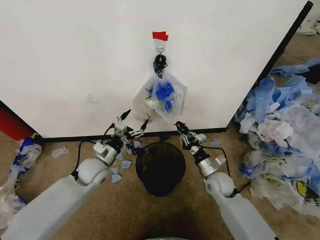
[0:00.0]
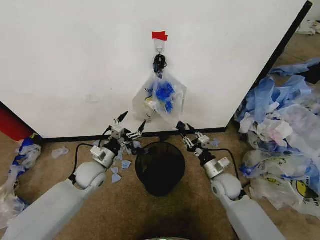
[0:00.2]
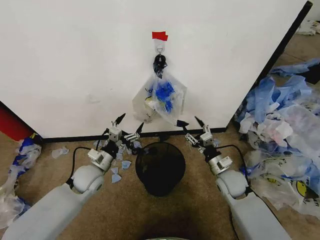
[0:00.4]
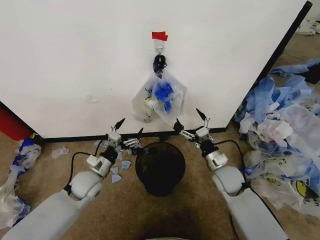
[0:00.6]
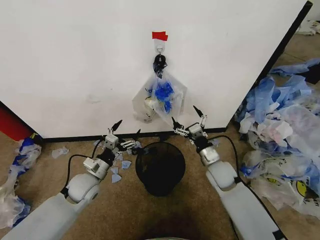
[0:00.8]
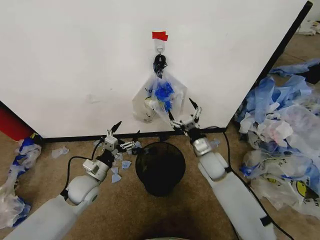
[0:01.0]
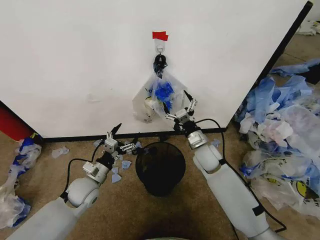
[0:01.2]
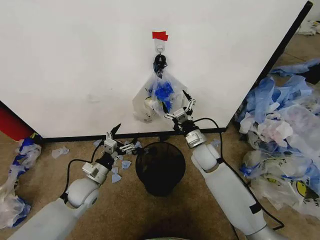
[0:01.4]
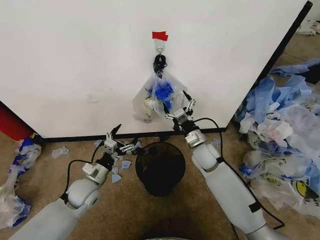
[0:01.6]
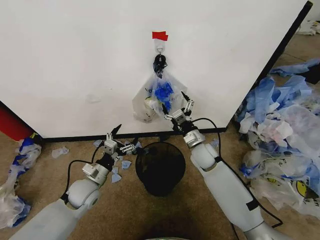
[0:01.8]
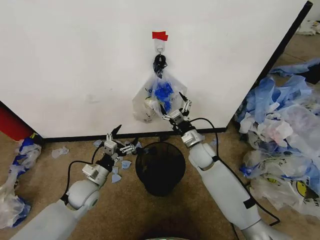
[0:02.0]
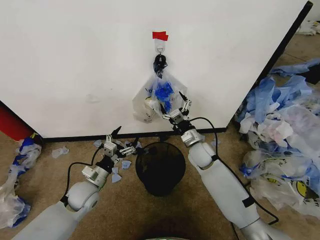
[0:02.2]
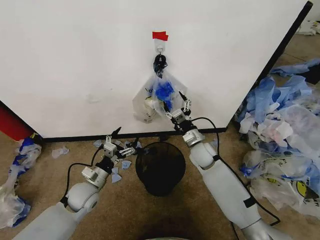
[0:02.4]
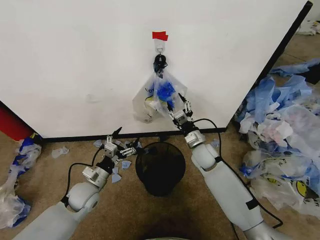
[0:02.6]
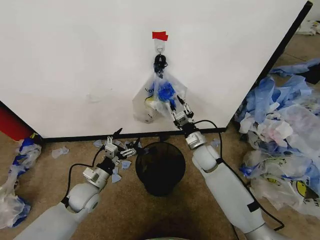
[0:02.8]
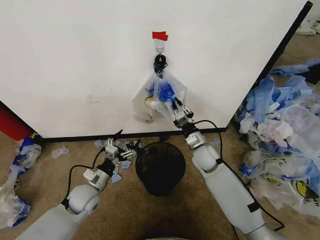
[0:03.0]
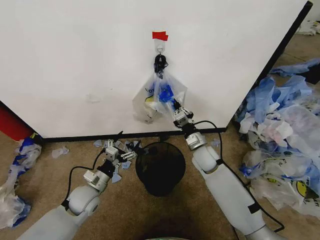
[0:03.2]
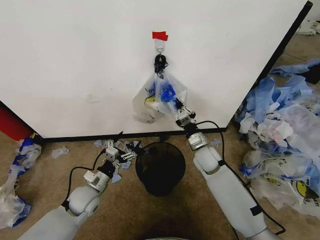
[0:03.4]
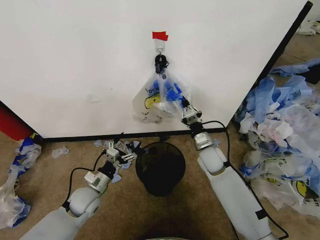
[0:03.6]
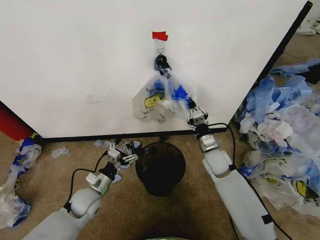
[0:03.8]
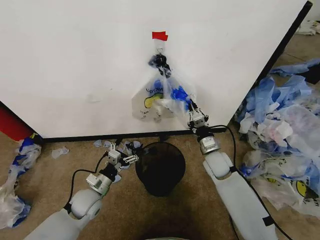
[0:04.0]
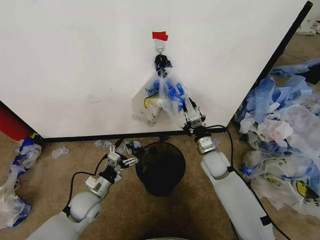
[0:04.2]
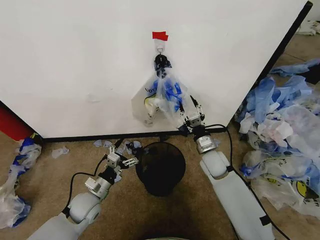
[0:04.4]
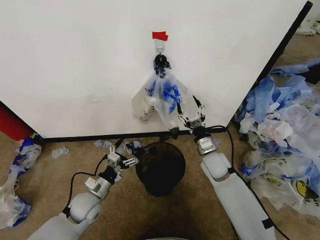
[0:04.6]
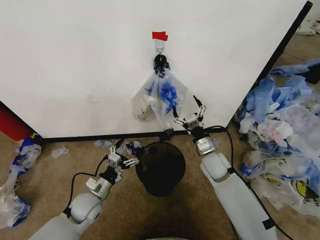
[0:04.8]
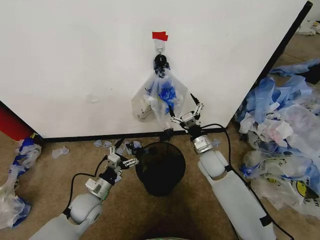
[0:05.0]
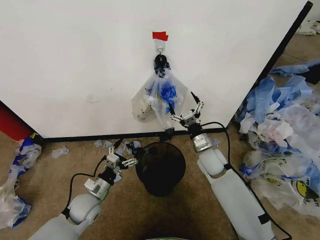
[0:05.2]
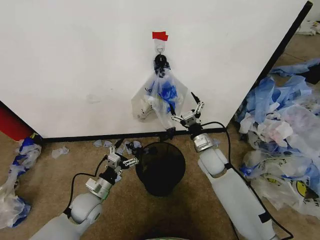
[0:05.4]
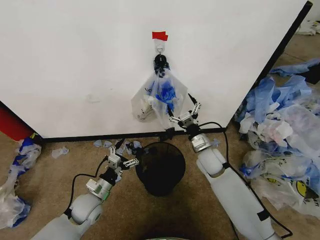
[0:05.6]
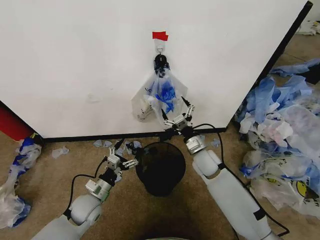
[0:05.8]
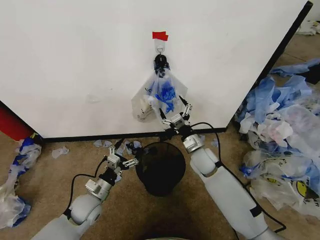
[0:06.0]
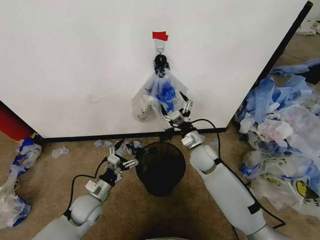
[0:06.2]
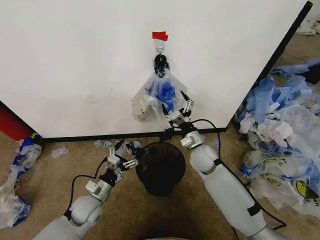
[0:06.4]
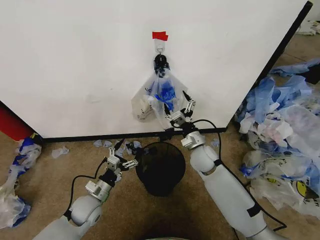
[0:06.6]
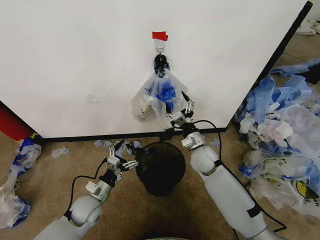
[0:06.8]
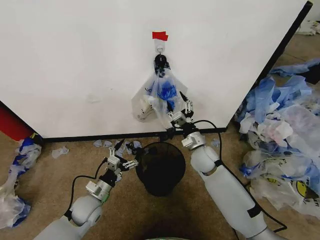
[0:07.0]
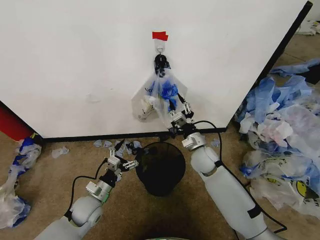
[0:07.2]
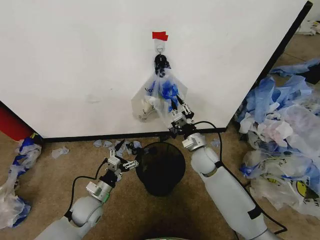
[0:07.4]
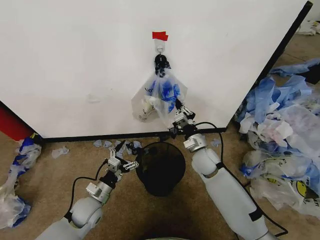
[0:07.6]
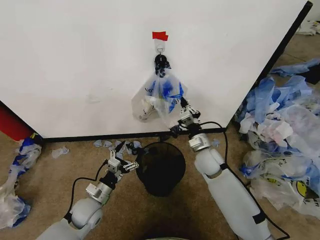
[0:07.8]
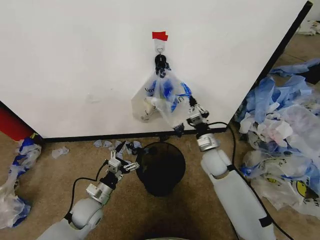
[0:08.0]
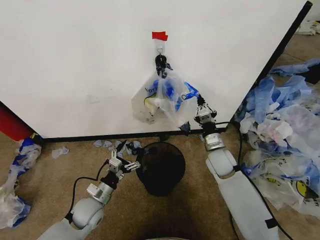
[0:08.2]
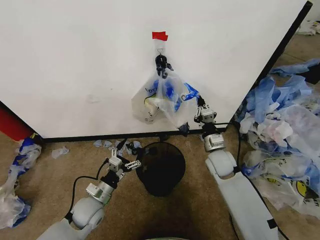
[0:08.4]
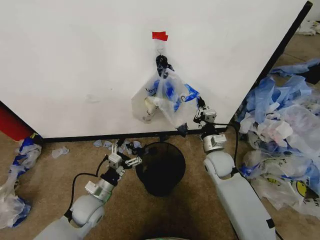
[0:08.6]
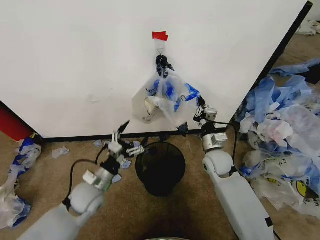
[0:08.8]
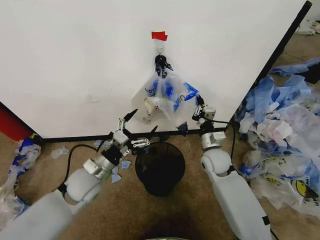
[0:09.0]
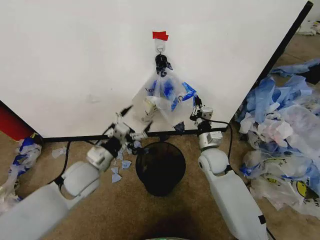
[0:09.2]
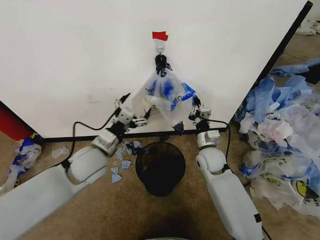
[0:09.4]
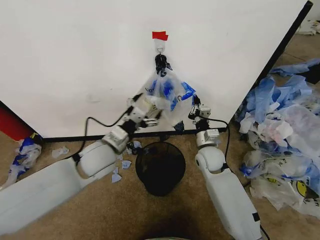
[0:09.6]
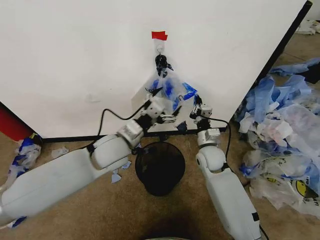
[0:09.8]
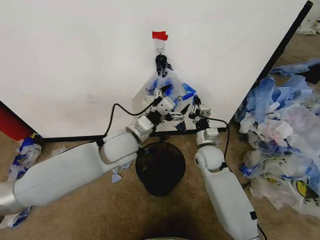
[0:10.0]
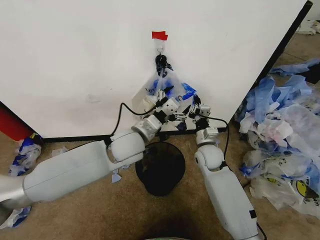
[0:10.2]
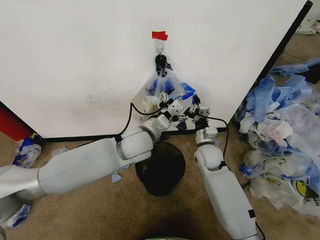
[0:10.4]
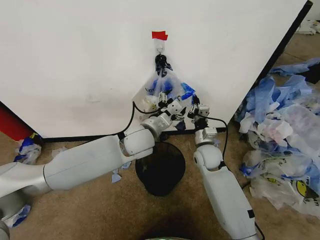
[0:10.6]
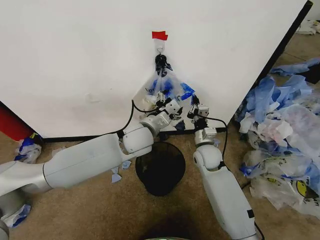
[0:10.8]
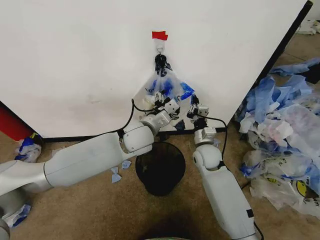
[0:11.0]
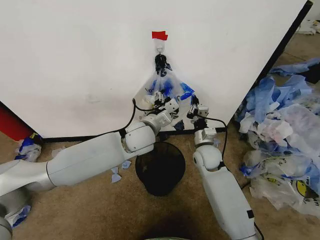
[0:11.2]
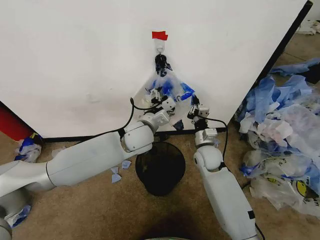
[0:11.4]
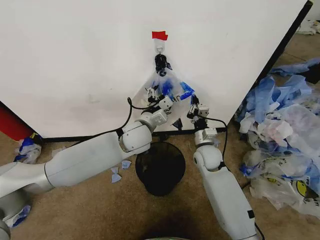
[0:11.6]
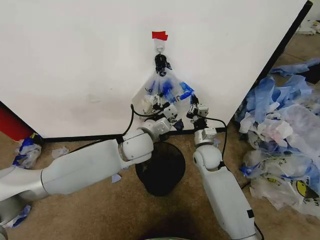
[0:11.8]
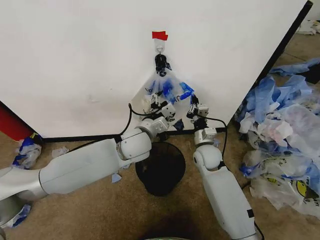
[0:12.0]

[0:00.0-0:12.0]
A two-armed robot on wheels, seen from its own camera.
Task of the whole recording: Pick up the garbage bag from the wall and place it over the trash bin.
0:00.0 to 0:01.6: The left gripper goes some 5 cm backward. Meanwhile the right gripper is displaced upward, forward and to the left by roughly 10 cm, and opens up.
0:01.6 to 0:03.0: The right gripper closes up.
0:03.0 to 0:04.4: The right gripper opens up.
0:04.4 to 0:06.0: The right gripper opens.
0:06.0 to 0:07.6: The right gripper closes up.
0:07.6 to 0:09.0: The left gripper goes roughly 10 cm upward.
0:09.0 to 0:10.4: The left gripper travels to the right, upward and forward by roughly 20 cm.

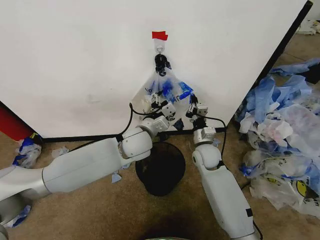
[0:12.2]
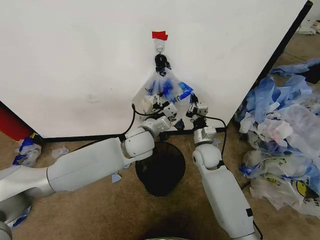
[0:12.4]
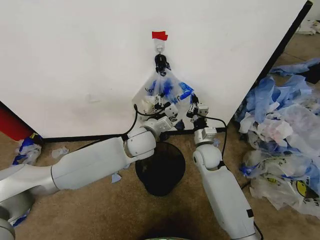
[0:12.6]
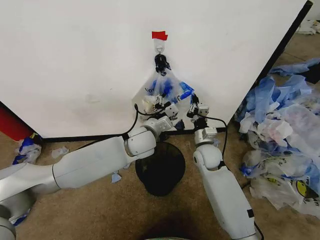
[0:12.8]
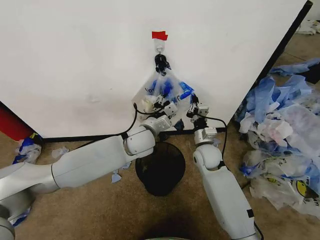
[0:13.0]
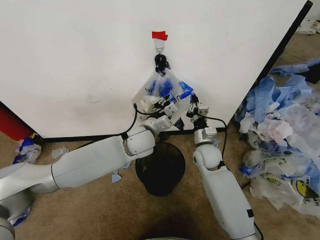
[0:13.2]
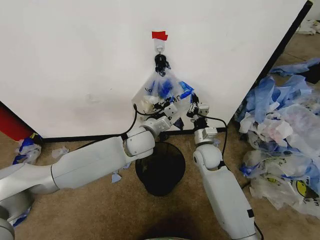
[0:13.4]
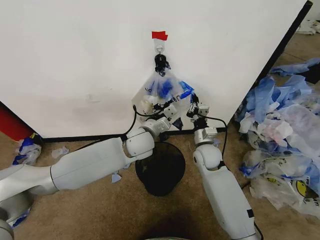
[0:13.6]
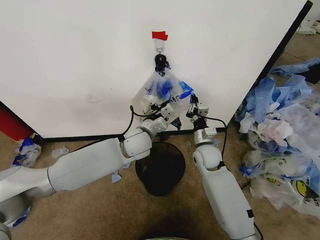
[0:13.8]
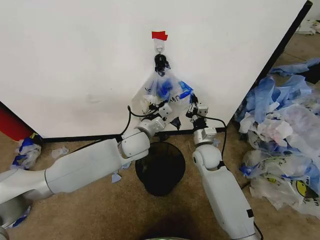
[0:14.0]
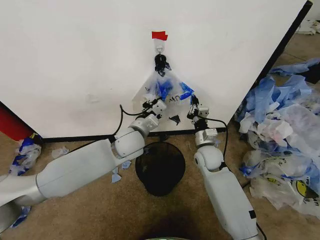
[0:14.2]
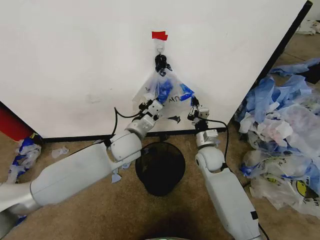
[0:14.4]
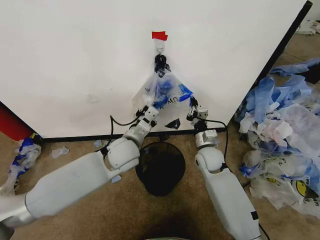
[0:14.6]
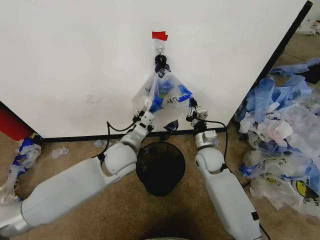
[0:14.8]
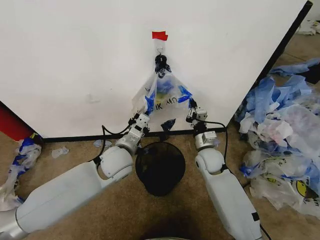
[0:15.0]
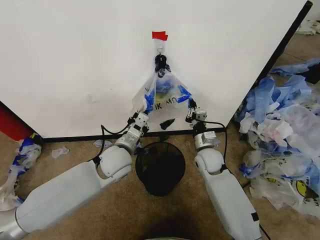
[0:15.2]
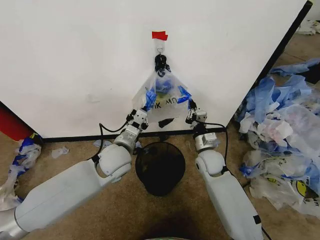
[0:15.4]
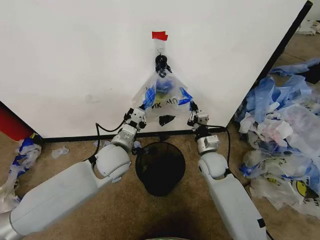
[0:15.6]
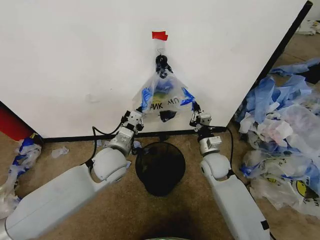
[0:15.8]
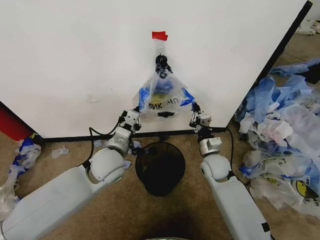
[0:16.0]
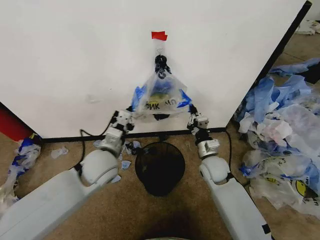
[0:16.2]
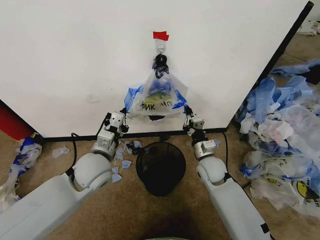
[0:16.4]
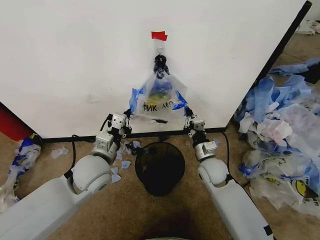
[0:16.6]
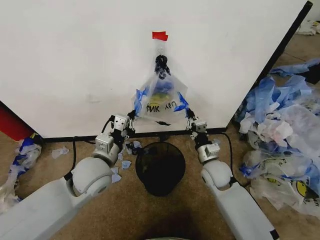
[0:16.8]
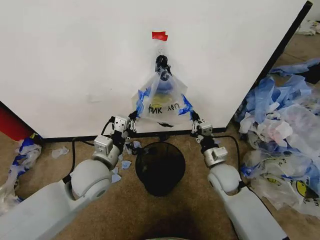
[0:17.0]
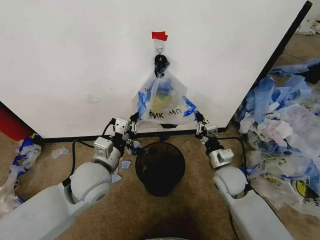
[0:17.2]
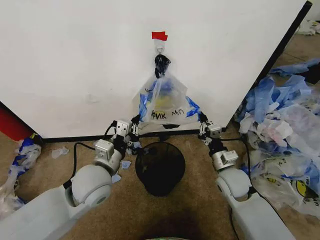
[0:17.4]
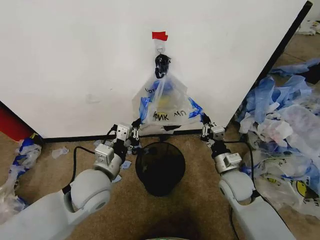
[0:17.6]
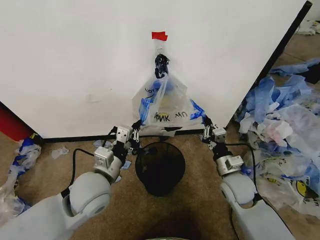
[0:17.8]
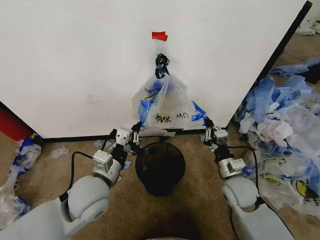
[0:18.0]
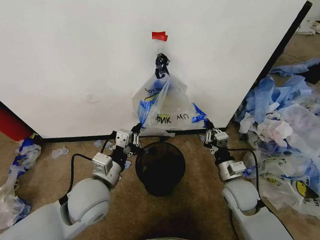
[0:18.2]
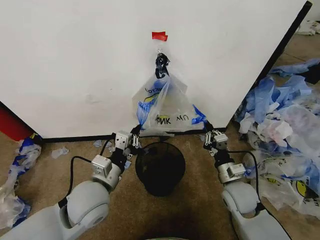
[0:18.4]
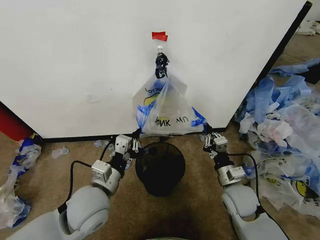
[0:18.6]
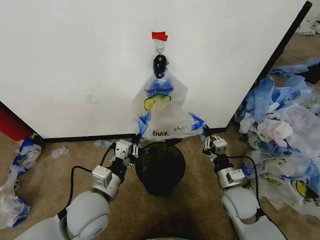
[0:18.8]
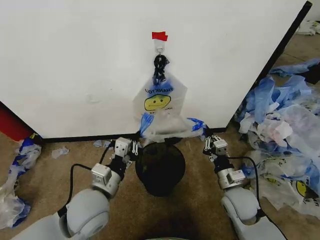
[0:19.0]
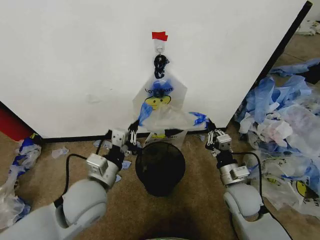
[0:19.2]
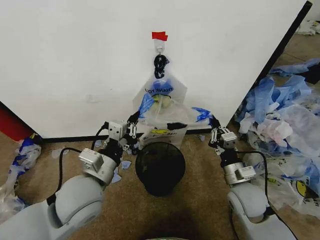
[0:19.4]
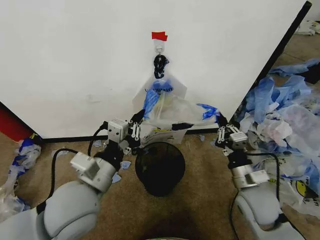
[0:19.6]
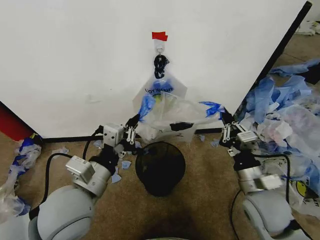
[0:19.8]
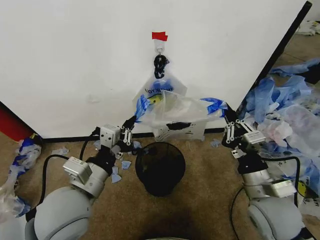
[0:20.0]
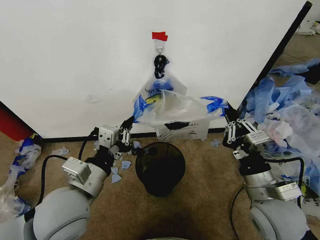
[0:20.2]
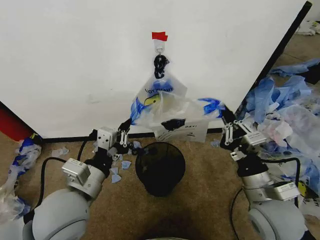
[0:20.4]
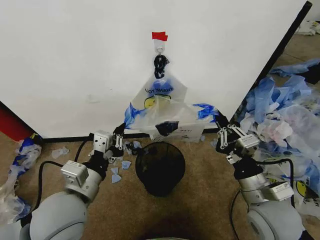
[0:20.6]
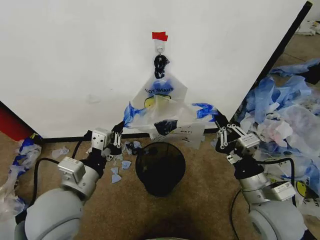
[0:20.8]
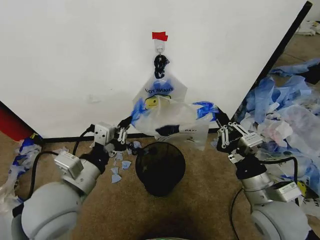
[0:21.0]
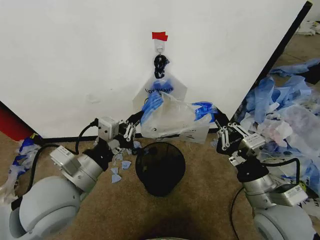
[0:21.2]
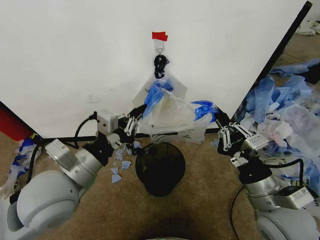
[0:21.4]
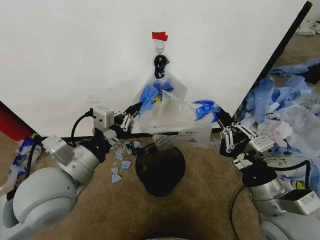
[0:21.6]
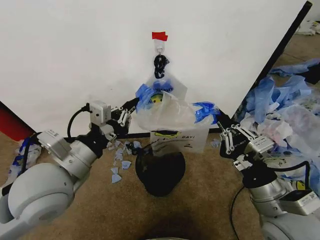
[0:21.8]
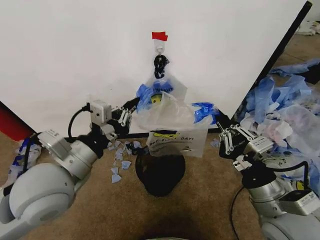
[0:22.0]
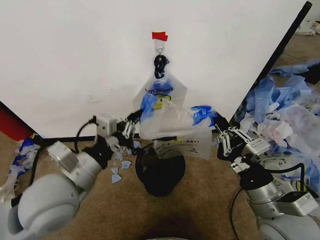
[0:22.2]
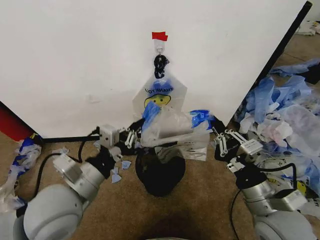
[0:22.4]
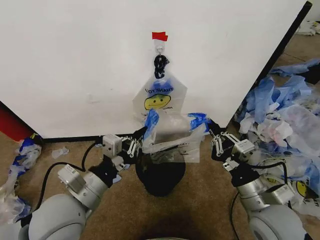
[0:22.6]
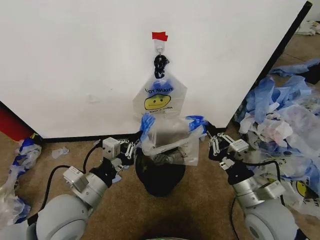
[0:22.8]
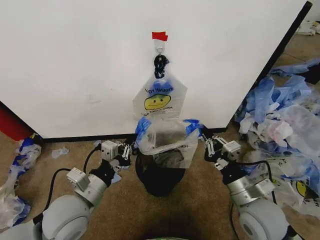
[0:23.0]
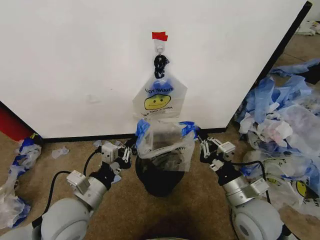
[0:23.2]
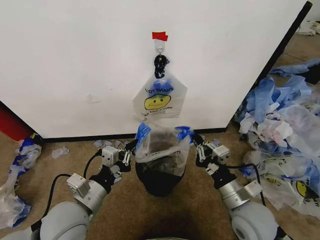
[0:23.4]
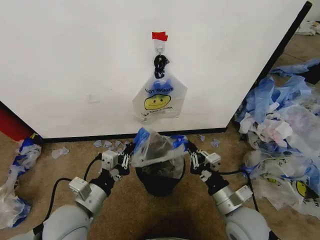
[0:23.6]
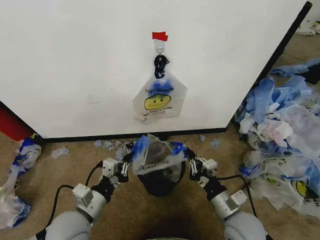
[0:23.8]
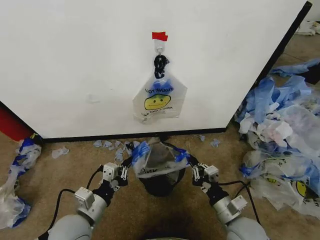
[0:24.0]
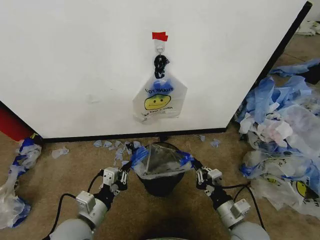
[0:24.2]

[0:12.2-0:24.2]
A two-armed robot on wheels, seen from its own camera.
Task of the whole recording: Pick up the garbage bag from the wall and place it over the trash bin.
0:12.2 to 0:13.8: The left gripper closes up.
0:13.8 to 0:15.2: The left gripper moves backward and to the left, roughly 10 cm.
0:15.2 to 0:16.6: The left gripper travels to the left by about 5 cm.
0:16.6 to 0:18.2: The left gripper goes roughly 5 cm backward. Meanwhile the right gripper heads backward and to the right, covering some 10 cm.
0:18.2 to 0:19.8: The right gripper is displaced upward and backward by approximately 10 cm. The left gripper travels upward by roughly 5 cm.
0:19.8 to 0:21.2: The right gripper changes place by roughly 5 cm.
0:21.2 to 0:22.6: The grippers make only small movements.
0:22.6 to 0:24.2: Both grippers travel together downward, some 10 cm.
